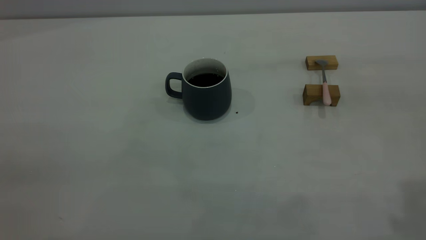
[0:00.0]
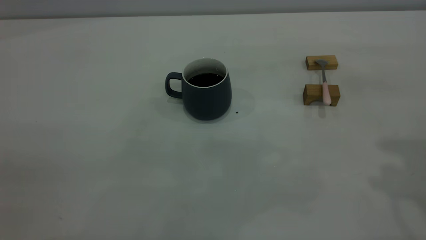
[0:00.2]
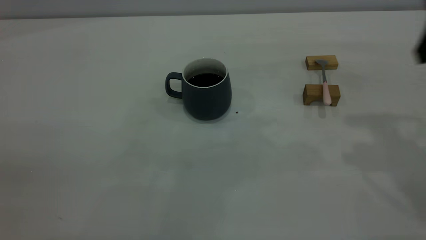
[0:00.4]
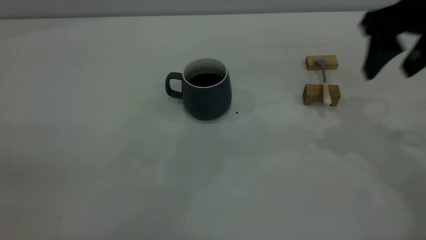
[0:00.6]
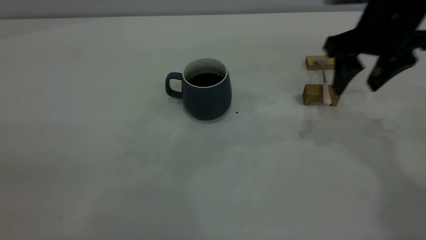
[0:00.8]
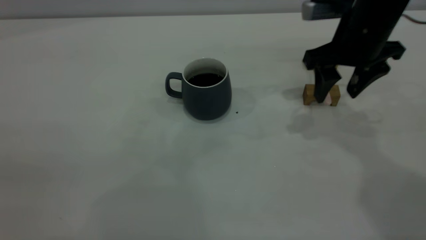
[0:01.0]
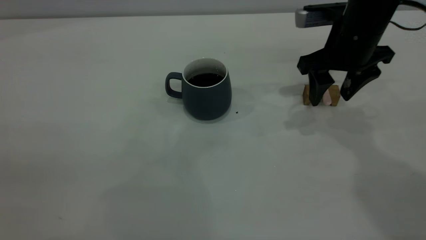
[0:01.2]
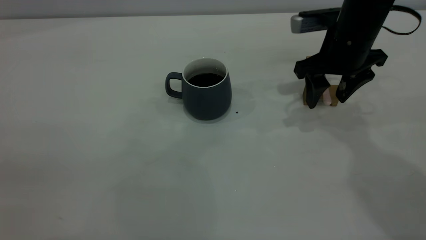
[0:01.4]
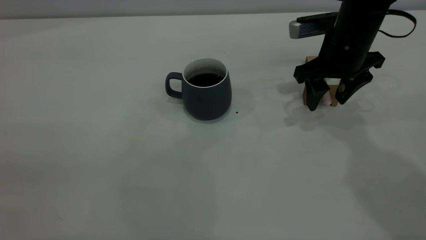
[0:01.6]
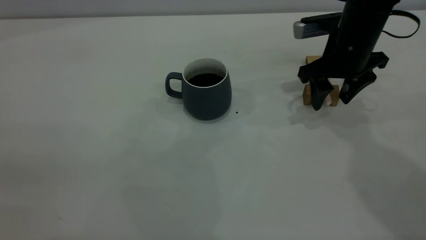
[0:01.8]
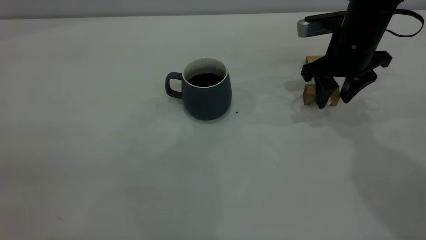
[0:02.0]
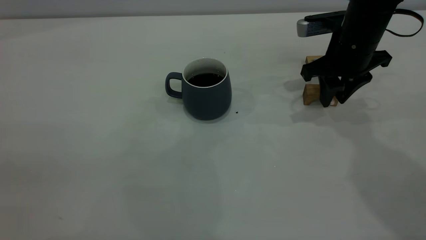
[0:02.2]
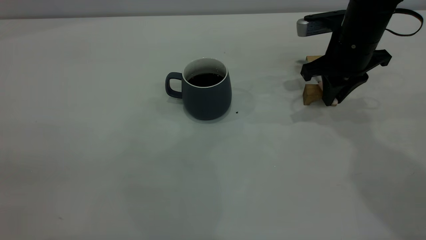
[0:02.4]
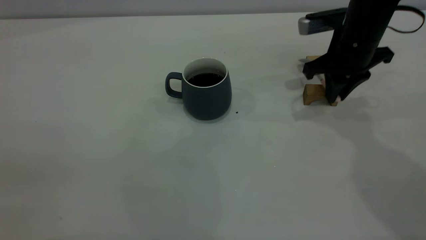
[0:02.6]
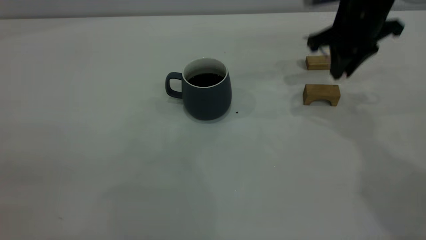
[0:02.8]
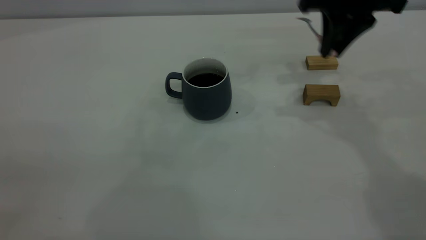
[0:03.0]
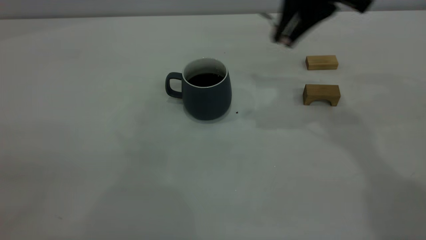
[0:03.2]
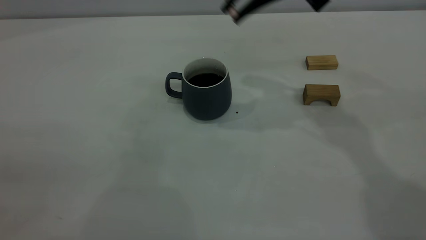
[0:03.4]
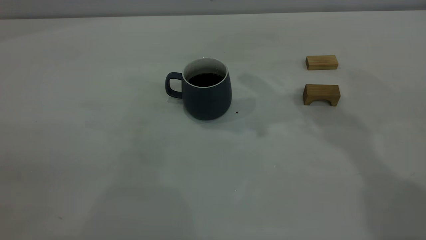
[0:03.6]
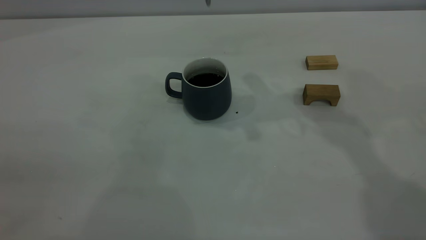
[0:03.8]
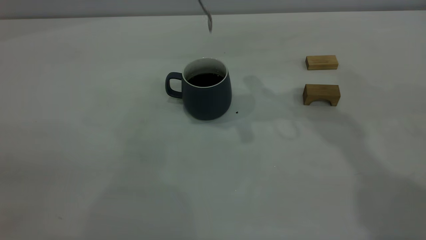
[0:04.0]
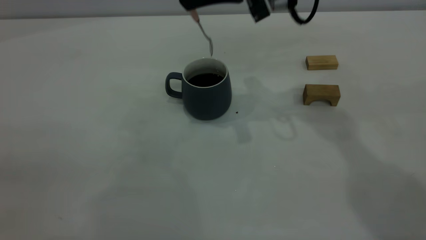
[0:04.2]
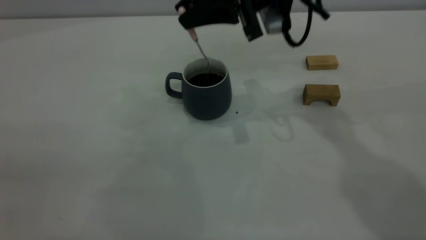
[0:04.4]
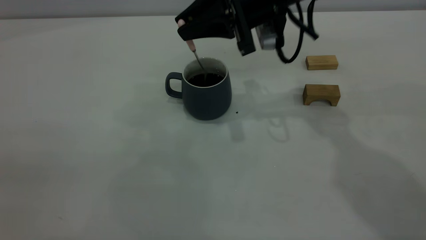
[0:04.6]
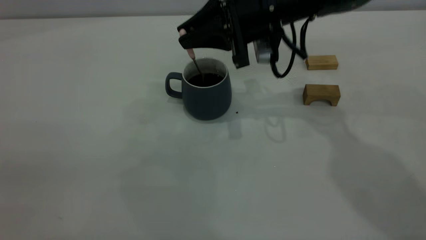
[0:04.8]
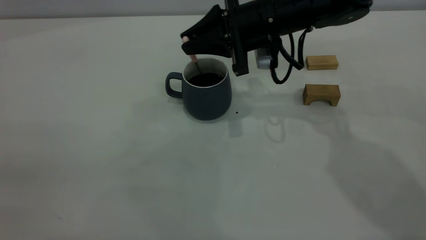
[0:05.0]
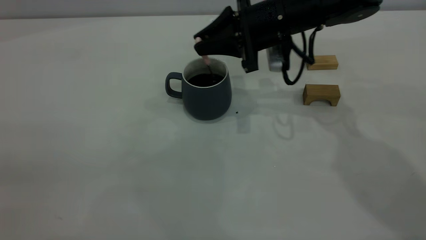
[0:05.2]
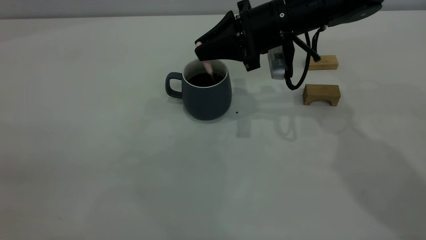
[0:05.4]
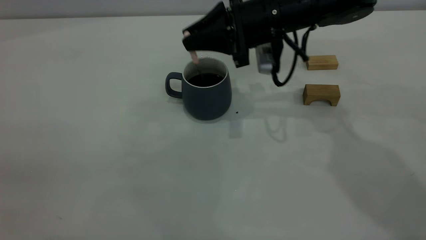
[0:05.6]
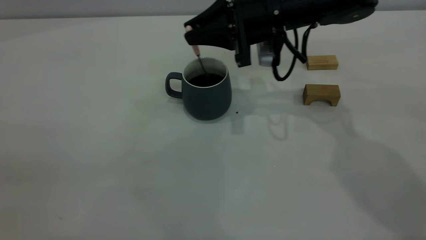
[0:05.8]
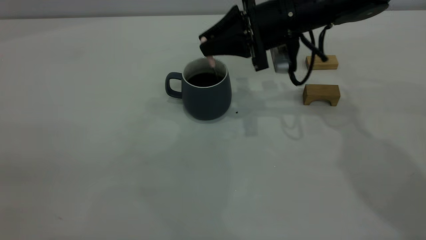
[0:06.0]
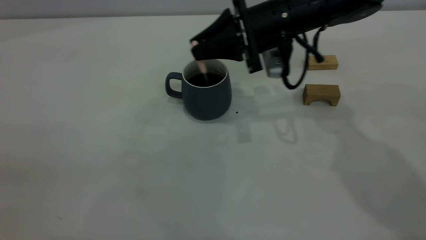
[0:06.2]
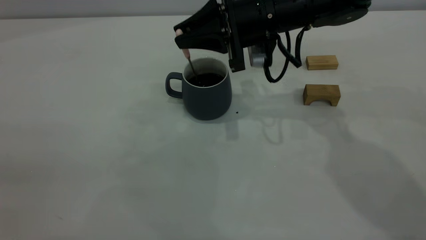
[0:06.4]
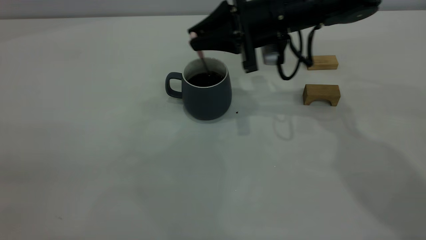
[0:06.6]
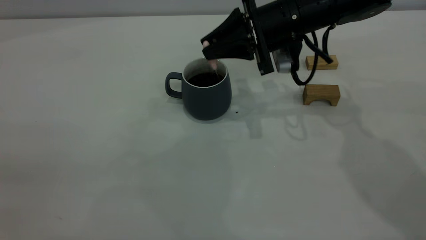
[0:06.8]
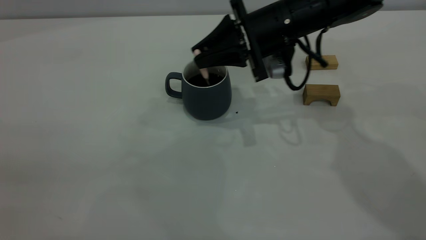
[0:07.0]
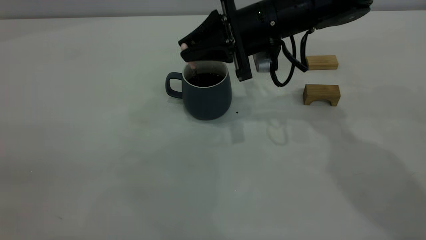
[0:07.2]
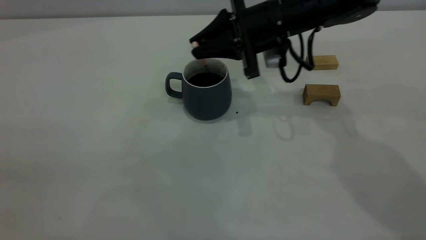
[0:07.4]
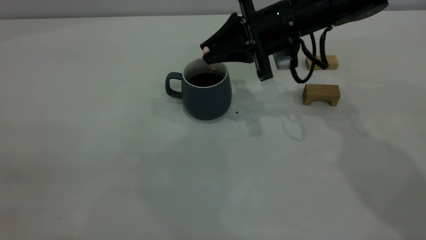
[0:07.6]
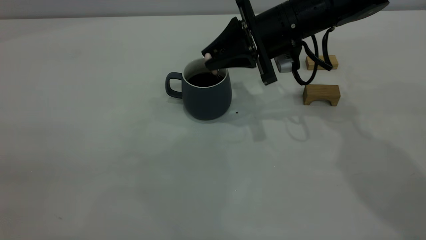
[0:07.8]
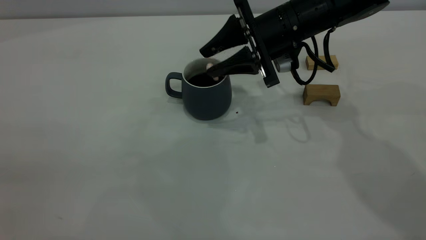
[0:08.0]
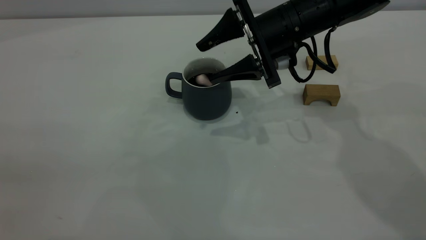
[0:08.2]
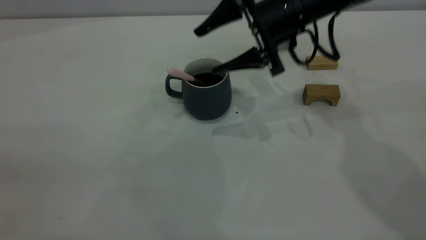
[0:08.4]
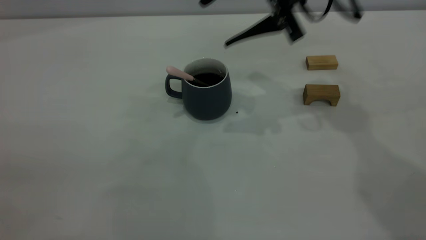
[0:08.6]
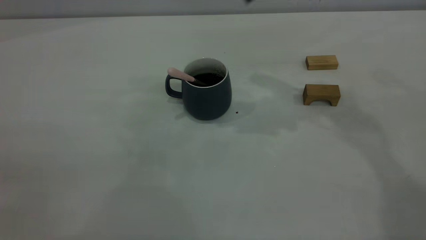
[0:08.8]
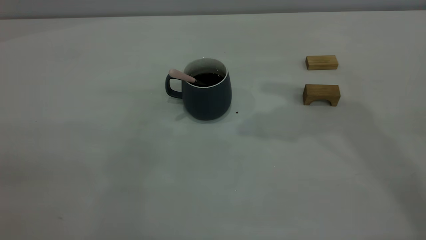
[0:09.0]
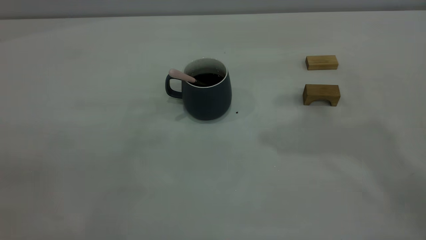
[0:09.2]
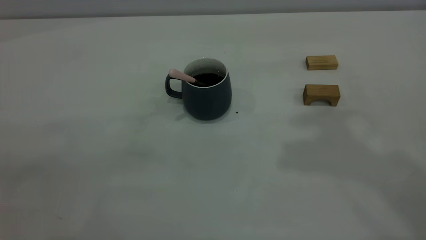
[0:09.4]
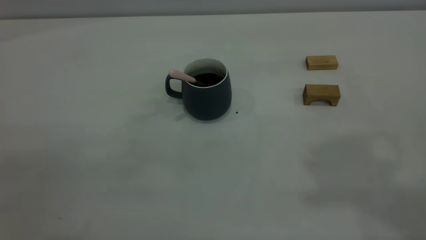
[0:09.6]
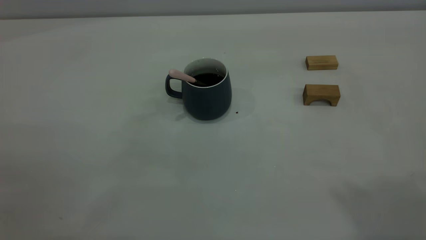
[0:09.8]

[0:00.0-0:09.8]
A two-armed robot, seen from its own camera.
Step, 0:00.0 to 0:02.8: Pick up the spoon.
Step, 0:03.0 to 0:08.4: Stir the coffee in the cup.
0:00.0 to 0:01.4: The right gripper travels forward, downward and to the left by some 35 cm.
0:01.4 to 0:02.8: The right gripper shifts approximately 5 cm upward, and closes.
0:02.8 to 0:04.2: The right gripper goes some 10 cm to the left.
0:04.2 to 0:05.6: The right gripper shifts some 10 cm downward.
0:05.6 to 0:07.0: The grippers make only small movements.
0:07.0 to 0:08.4: The right gripper opens its fingers.
0:08.4 to 0:09.8: The right gripper shifts about 50 cm upward and backward, and closes.

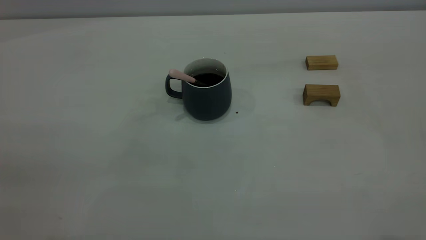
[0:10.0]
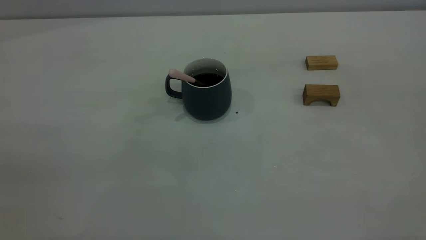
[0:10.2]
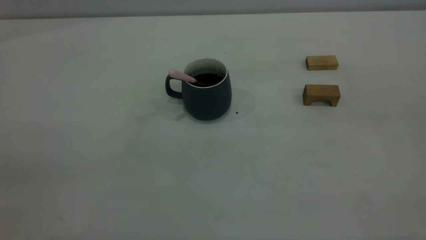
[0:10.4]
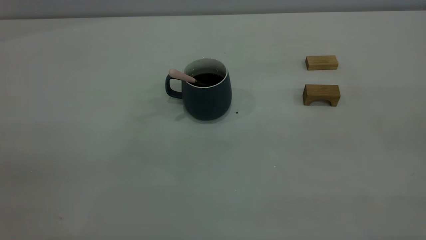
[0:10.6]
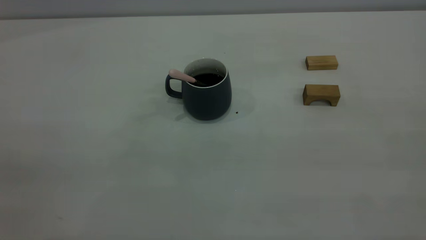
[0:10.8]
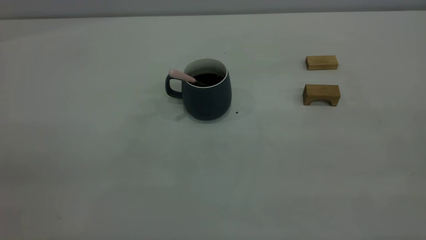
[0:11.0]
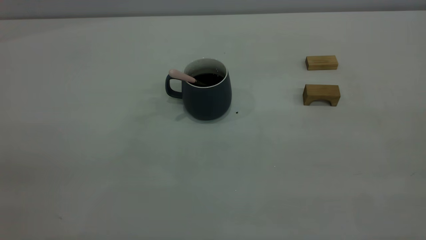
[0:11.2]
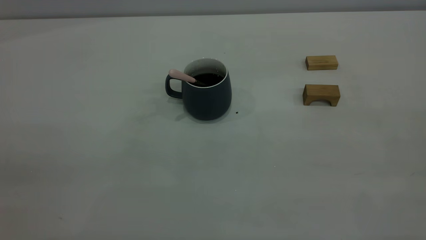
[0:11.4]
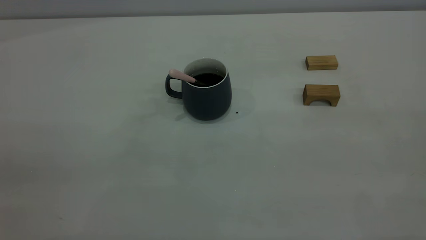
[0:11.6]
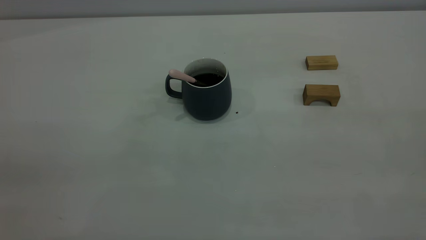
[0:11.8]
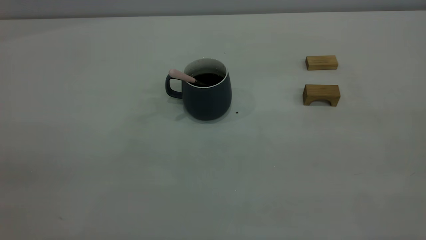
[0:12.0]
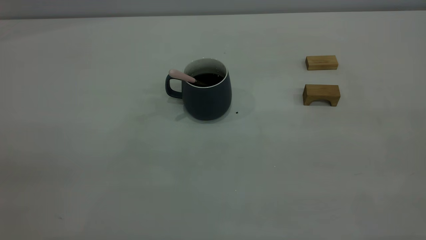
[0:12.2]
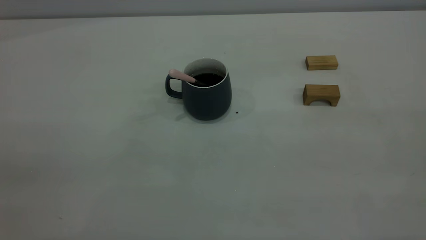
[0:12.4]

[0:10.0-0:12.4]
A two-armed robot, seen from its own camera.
0:11.2 to 0:12.4: Both grippers stay put.

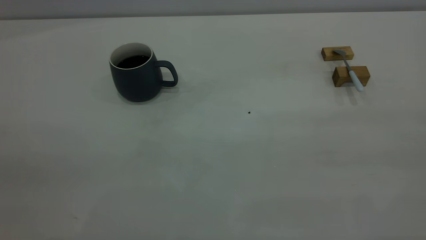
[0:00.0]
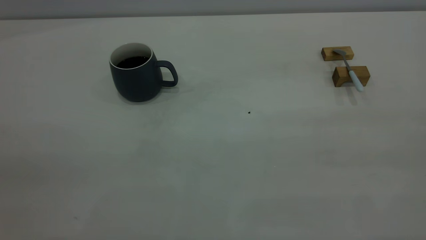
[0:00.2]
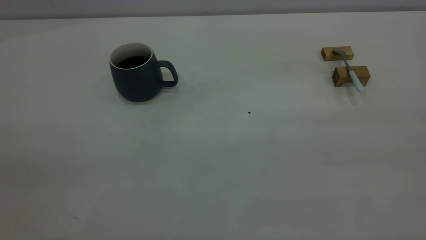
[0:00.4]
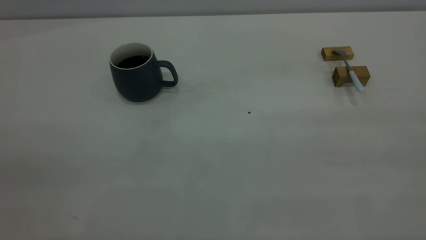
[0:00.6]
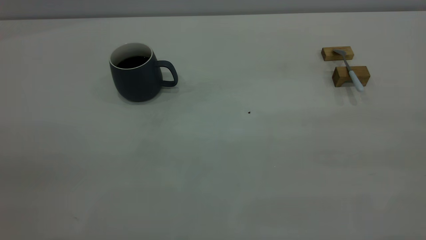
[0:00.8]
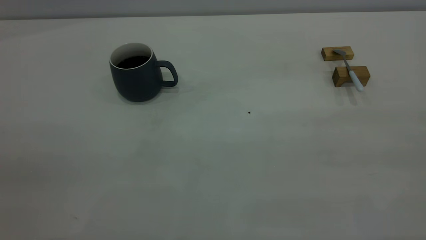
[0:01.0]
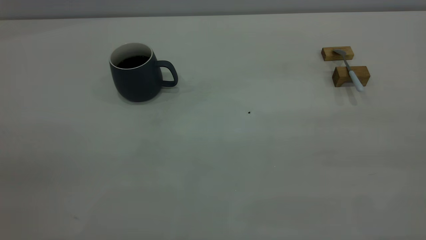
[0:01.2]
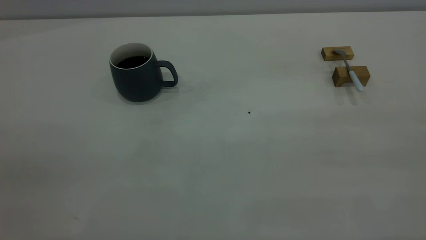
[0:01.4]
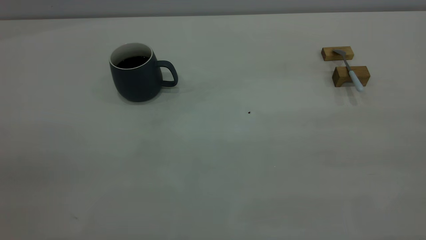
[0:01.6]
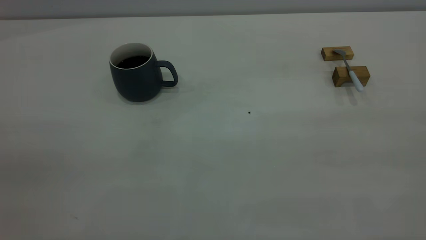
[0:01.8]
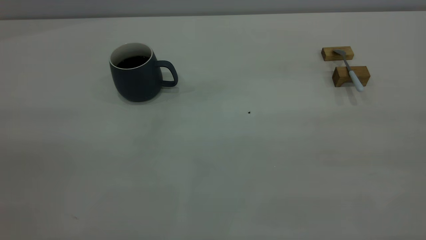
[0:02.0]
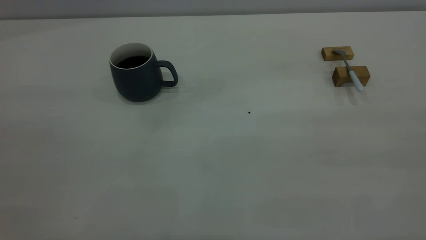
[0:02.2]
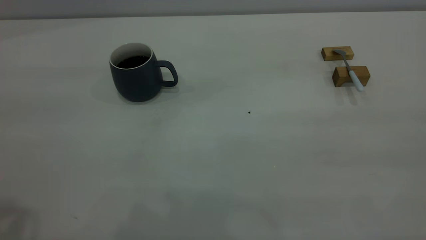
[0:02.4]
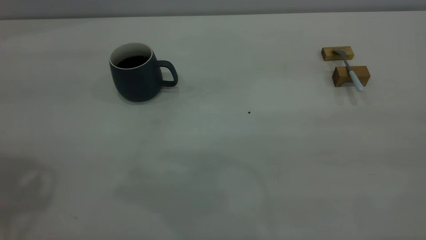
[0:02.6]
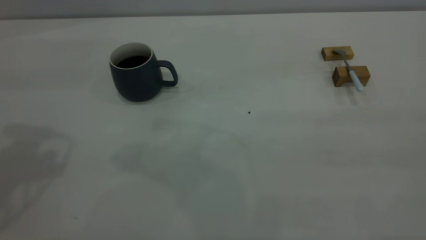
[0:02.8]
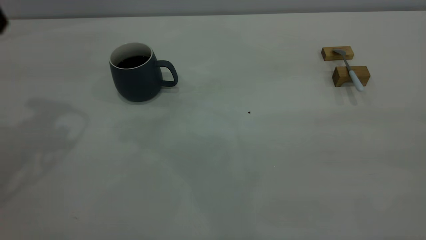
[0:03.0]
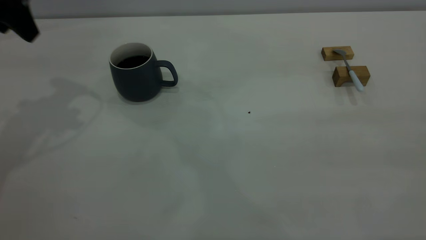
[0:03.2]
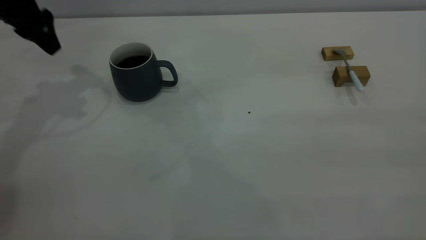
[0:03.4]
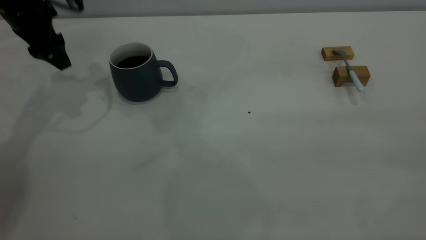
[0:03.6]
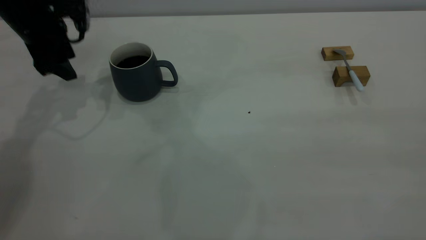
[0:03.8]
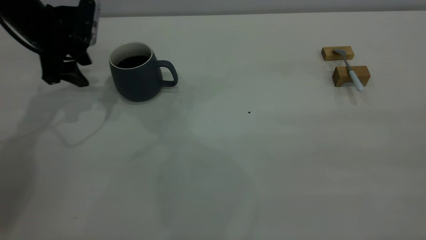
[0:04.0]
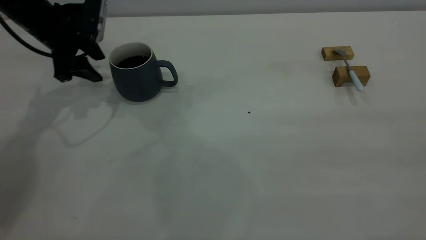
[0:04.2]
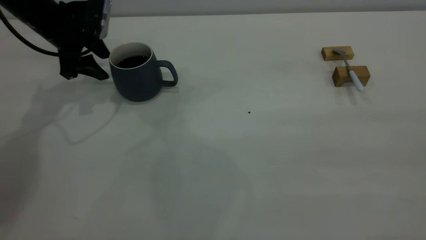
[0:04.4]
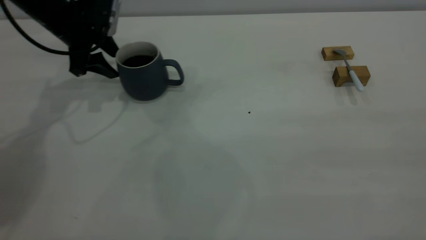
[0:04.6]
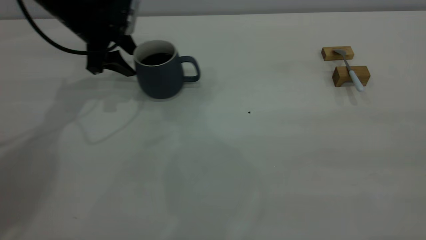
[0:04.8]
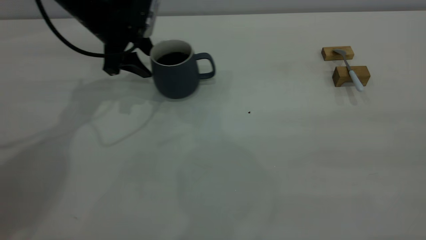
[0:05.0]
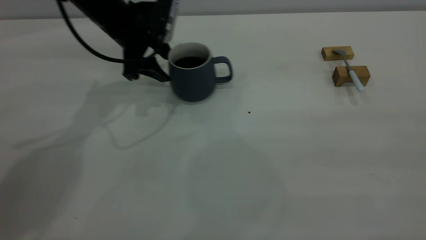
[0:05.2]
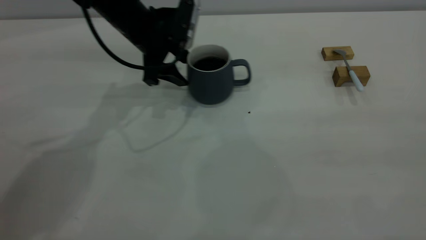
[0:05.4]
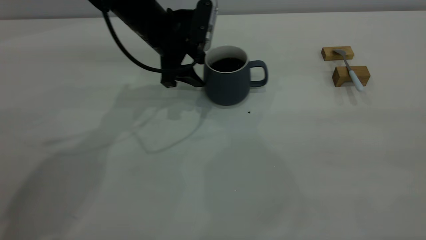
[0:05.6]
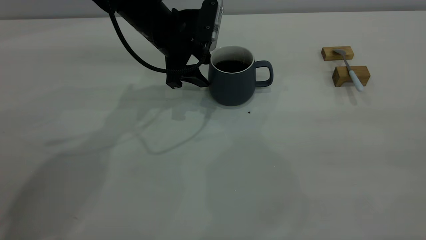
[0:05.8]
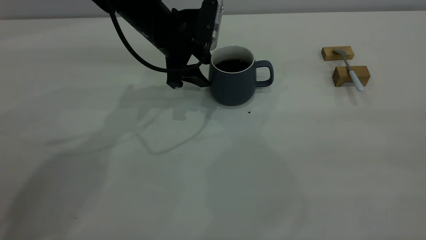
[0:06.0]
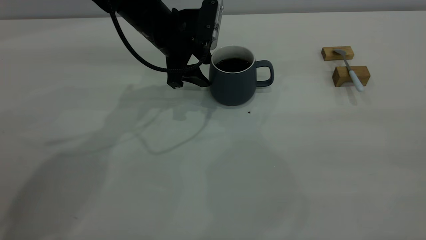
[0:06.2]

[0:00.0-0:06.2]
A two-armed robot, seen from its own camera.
0:00.0 to 0:01.6: Neither gripper changes place.
0:01.6 to 0:03.2: The left gripper heads forward, covering some 40 cm.
0:03.2 to 0:04.6: The left gripper heads downward and forward, covering about 15 cm.
0:04.6 to 0:06.2: The left gripper is displaced to the right by approximately 15 cm.
